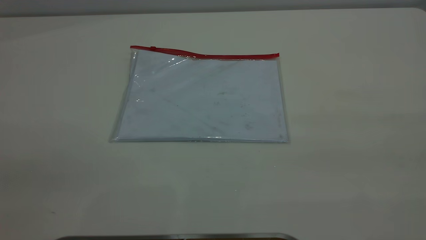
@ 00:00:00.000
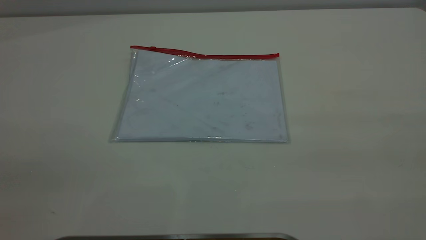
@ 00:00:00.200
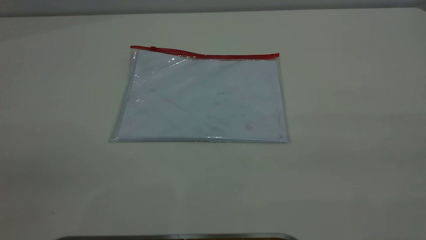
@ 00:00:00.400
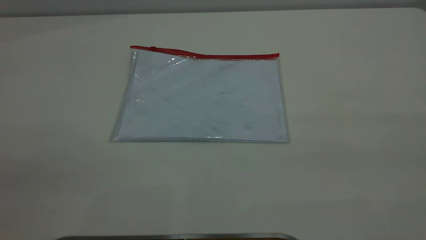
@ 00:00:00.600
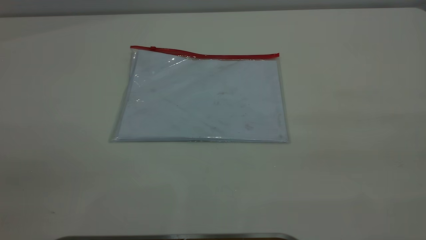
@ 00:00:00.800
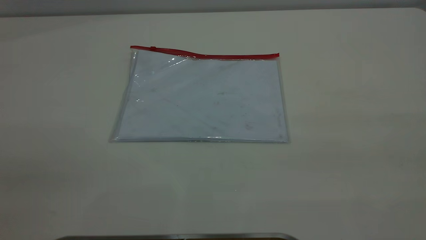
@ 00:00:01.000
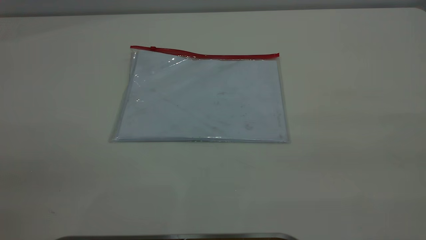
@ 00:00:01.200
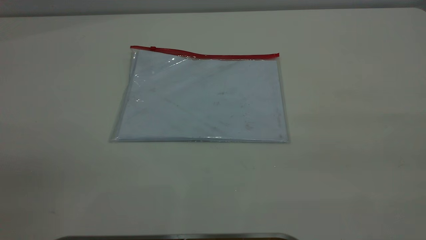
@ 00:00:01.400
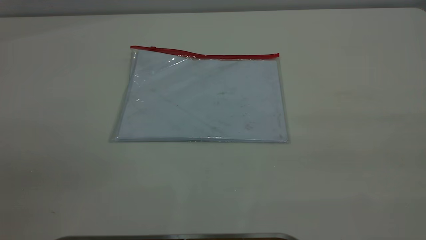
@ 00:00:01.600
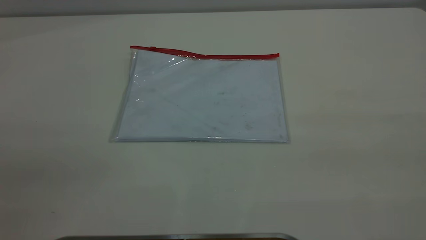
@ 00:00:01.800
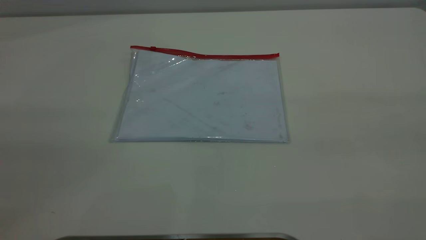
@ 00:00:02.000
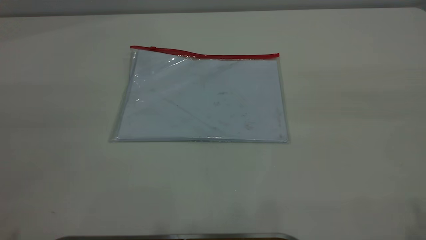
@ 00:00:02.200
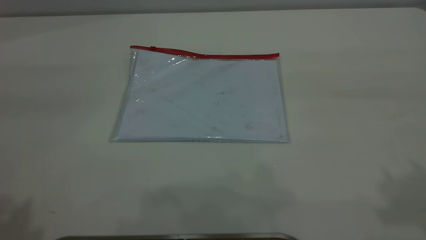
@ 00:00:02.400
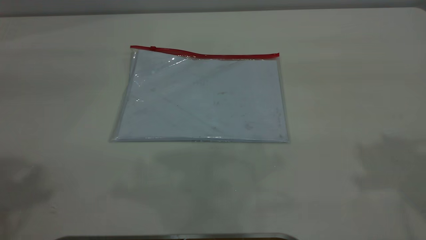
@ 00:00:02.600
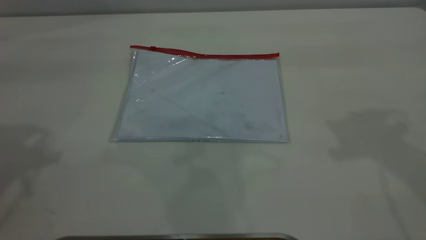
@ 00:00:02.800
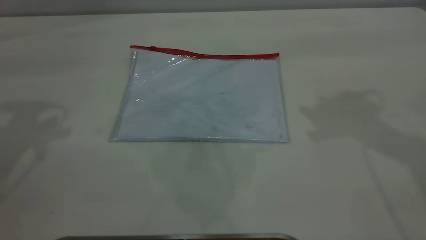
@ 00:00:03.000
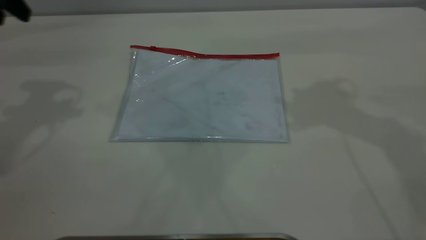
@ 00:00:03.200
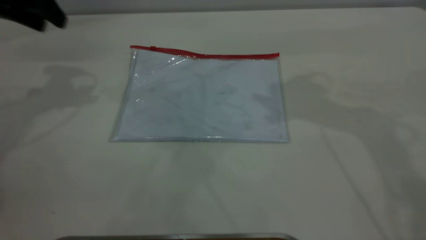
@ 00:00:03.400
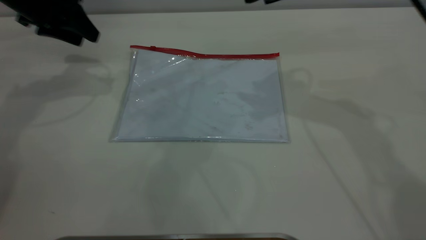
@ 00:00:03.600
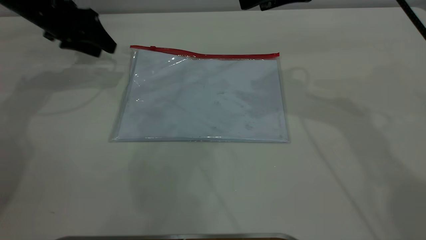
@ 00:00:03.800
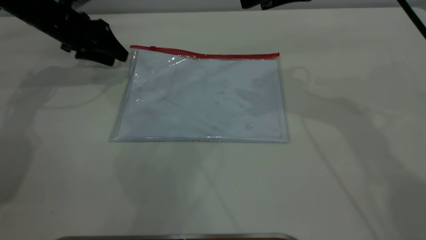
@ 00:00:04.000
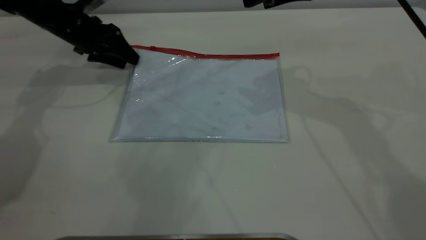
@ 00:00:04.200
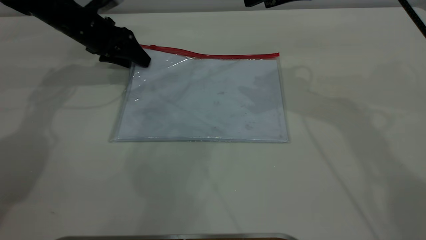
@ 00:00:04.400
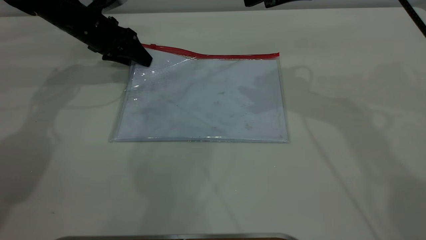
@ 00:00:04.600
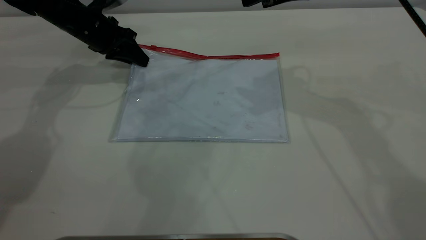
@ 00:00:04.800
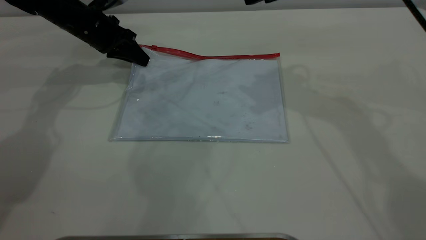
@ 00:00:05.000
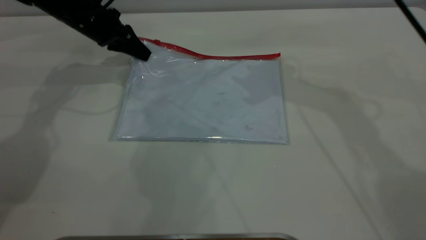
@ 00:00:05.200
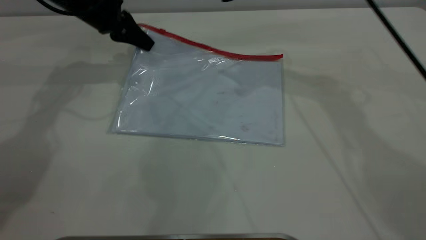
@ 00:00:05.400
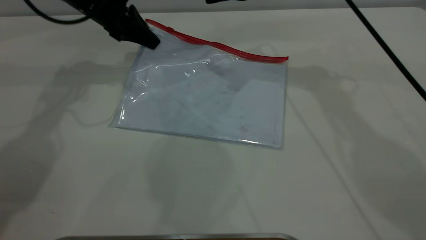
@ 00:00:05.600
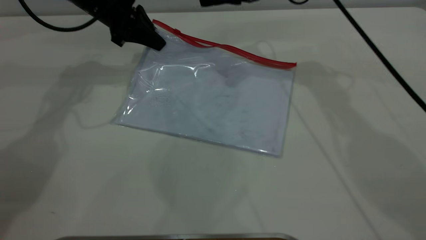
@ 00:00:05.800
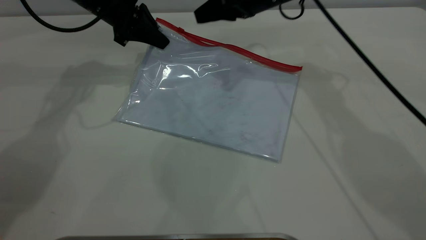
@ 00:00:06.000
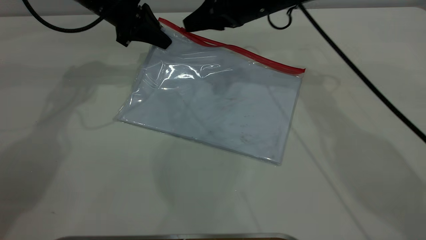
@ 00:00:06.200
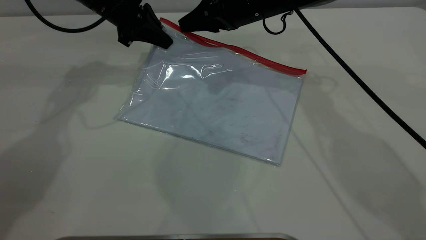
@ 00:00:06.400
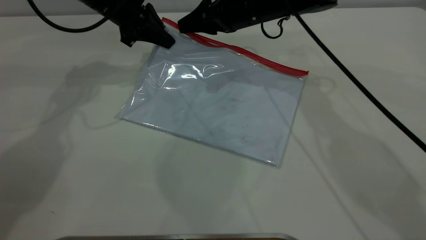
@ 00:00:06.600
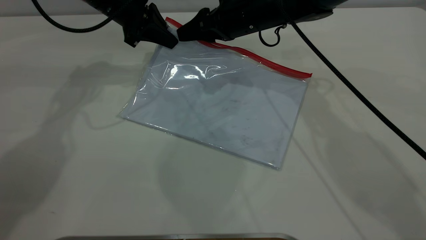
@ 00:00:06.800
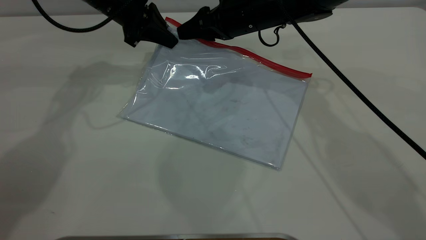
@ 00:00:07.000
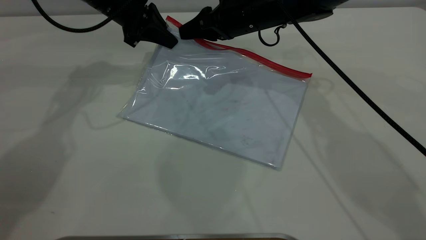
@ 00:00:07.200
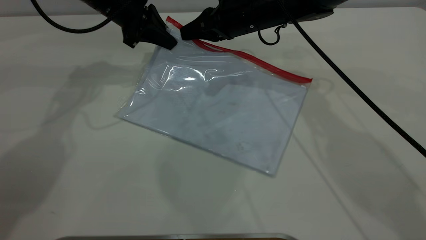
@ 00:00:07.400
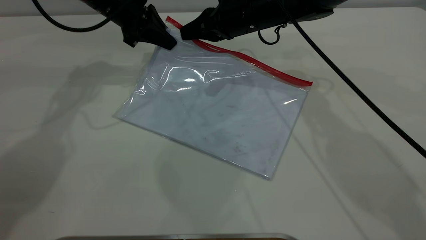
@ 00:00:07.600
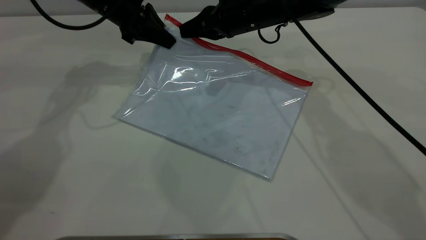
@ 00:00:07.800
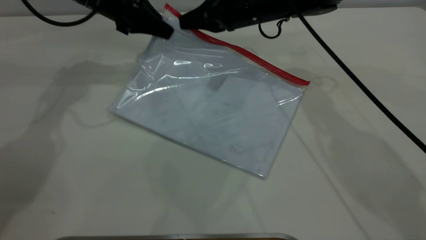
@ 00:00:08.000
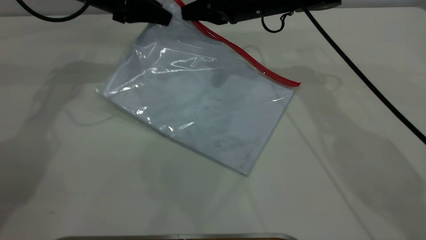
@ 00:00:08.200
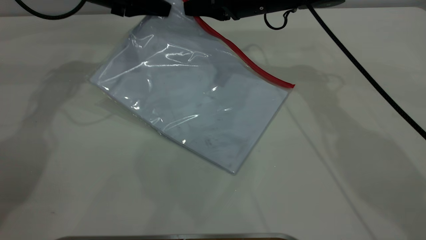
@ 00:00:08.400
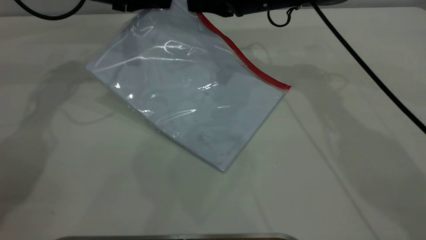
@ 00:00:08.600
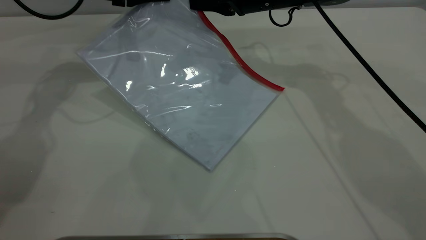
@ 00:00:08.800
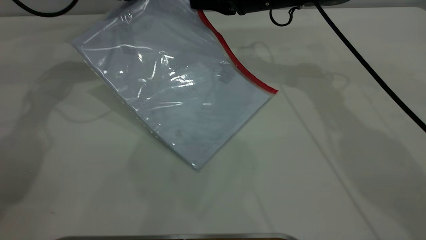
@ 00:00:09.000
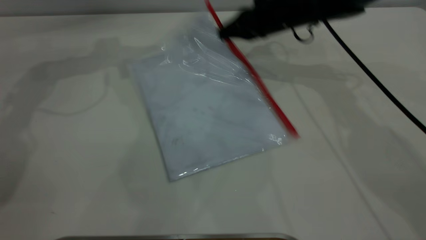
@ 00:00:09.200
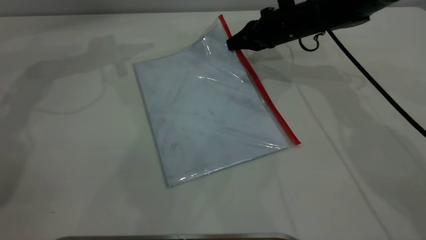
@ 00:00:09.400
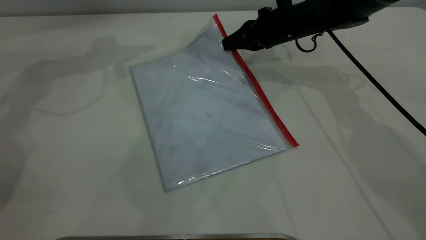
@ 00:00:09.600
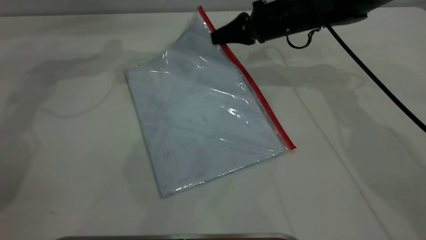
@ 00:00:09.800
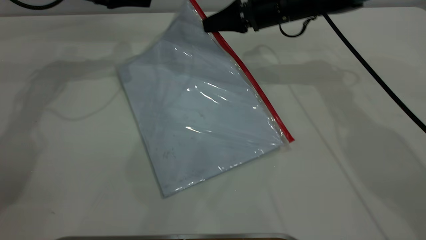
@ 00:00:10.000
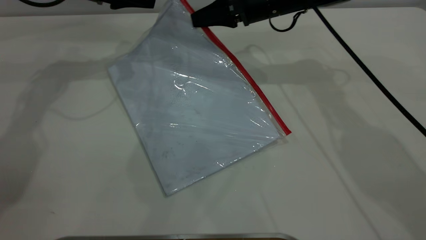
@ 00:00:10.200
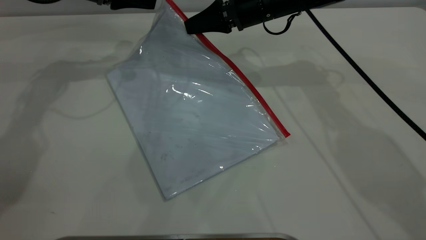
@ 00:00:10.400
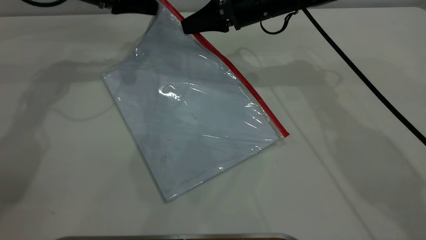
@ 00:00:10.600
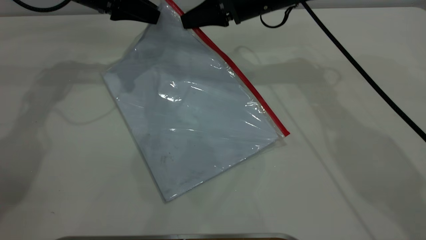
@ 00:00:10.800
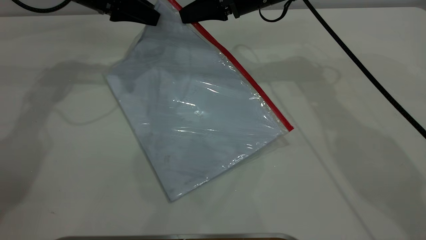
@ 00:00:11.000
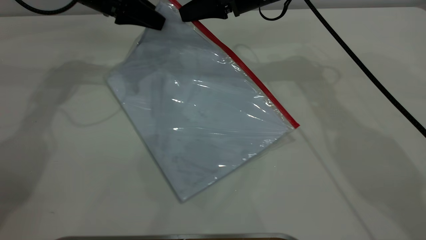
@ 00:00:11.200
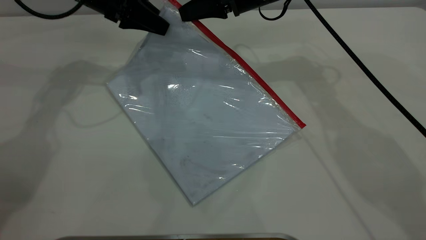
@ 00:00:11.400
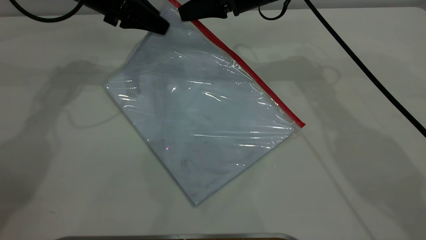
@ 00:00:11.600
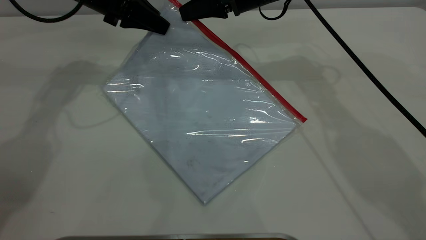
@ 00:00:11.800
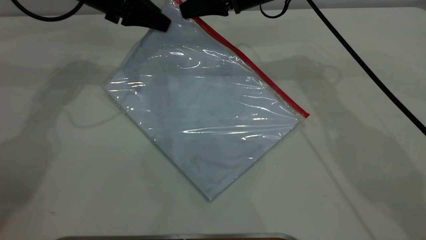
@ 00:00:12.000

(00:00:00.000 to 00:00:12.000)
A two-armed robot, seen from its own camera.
Step, 00:00:00.000 - 00:00:05.400: Pick up the transparent plastic bag with the left gripper.
00:00:00.000 - 00:00:01.600: Both grippers stay about where they are.
00:00:03.000 - 00:00:04.400: The left gripper is displaced downward and forward by roughly 25 cm, while the right gripper goes some 15 cm to the left, downward and forward.
00:00:04.400 - 00:00:06.000: The right gripper travels downward, forward and to the left by approximately 15 cm. The left gripper shifts some 5 cm upward and to the right, and closes its fingers.
00:00:06.000 - 00:00:07.600: The right gripper closes up.
00:00:07.600 - 00:00:09.000: The left gripper moves approximately 5 cm.
00:00:09.000 - 00:00:10.400: The left gripper opens up.
00:00:10.400 - 00:00:12.000: The left gripper closes.

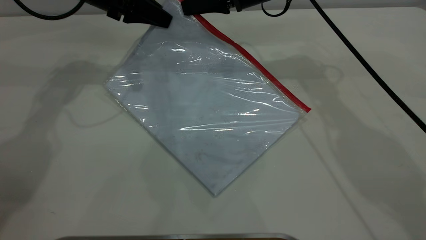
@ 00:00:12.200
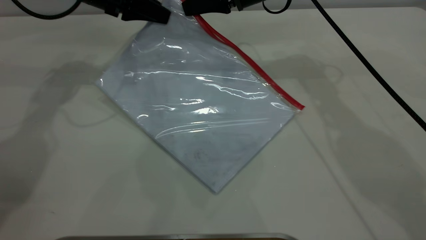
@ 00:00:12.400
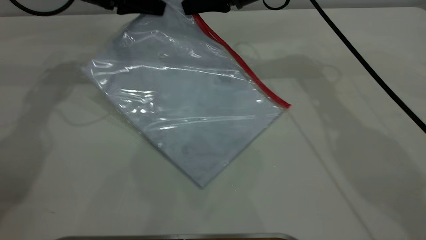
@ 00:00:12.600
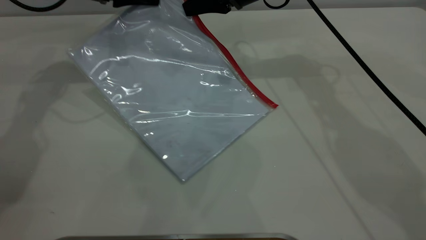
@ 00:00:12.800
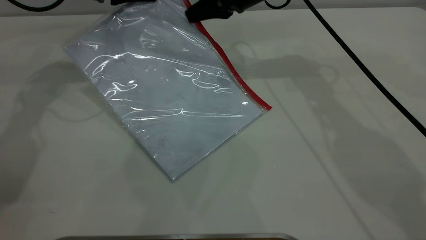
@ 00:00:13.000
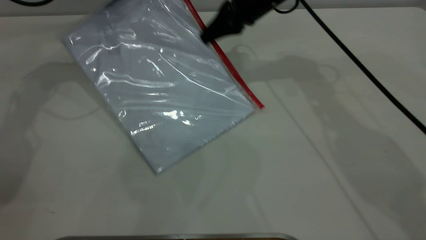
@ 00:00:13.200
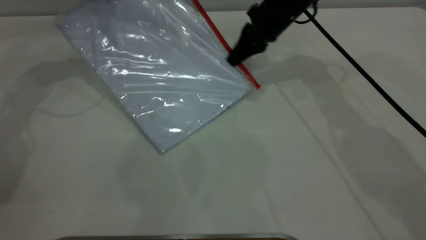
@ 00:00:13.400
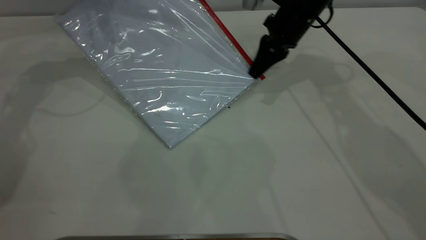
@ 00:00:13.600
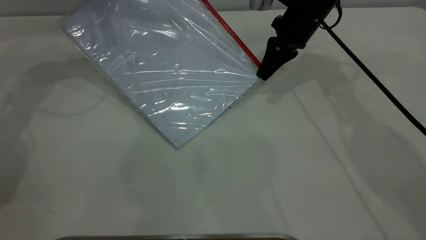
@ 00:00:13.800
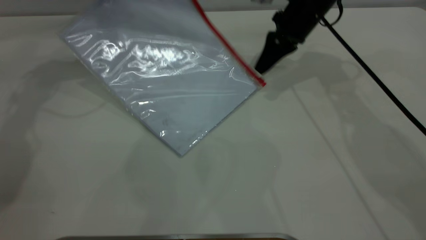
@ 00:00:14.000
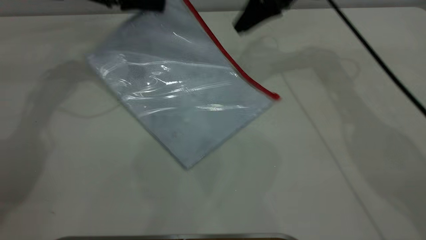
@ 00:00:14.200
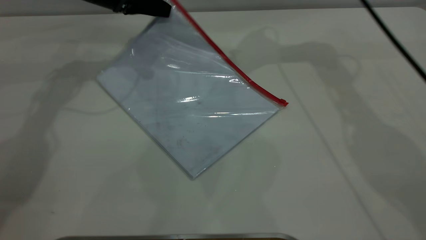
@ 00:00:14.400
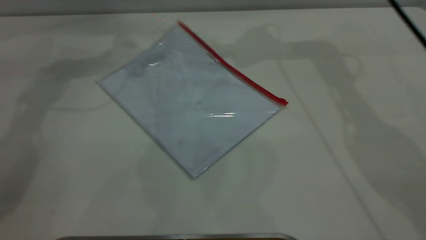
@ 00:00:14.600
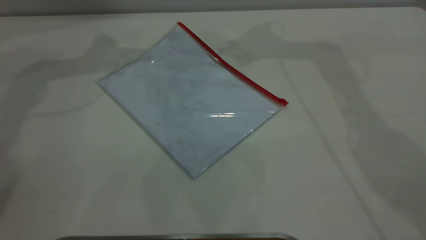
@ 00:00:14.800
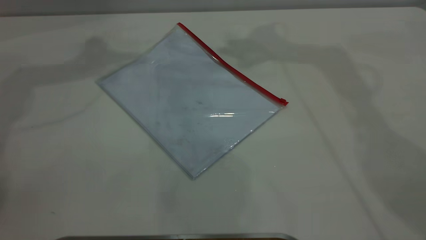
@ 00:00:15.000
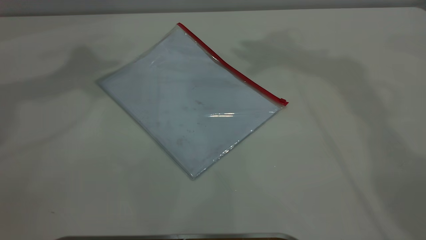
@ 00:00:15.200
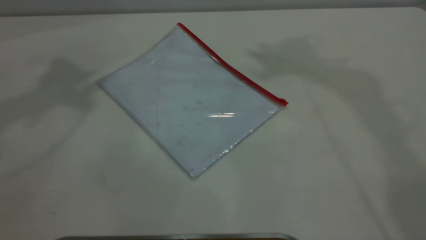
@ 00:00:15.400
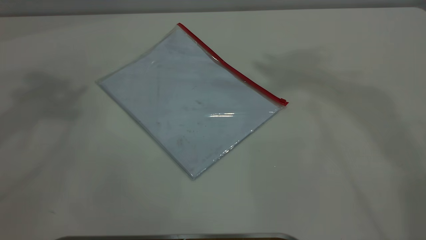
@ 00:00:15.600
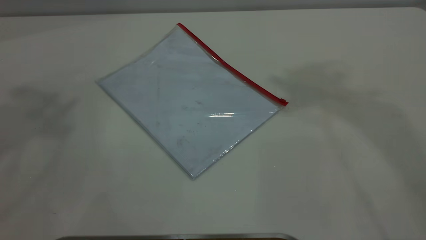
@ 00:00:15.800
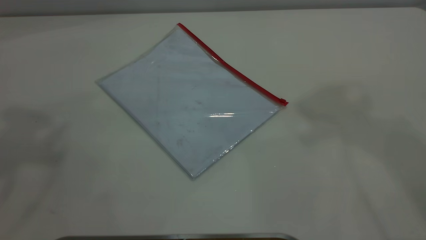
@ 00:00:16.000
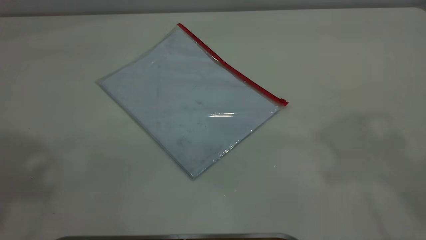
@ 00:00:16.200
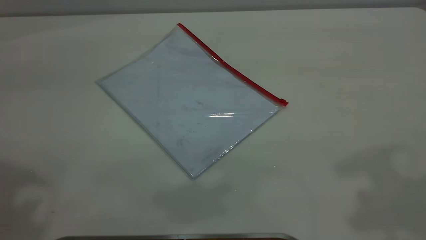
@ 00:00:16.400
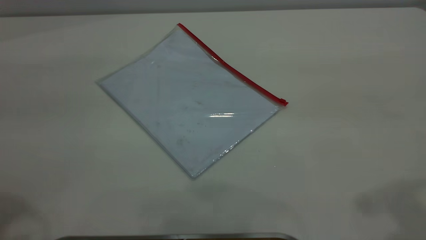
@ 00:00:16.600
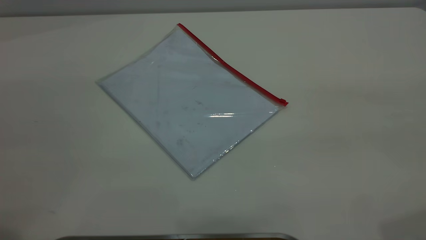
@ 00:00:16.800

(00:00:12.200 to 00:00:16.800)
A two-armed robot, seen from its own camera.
Step, 00:00:14.400 - 00:00:14.600: Place the transparent plastic bag.
00:00:12.200 - 00:00:13.800: The left gripper heads to the left, covering approximately 5 cm; the right gripper shifts roughly 10 cm to the right.
00:00:13.800 - 00:00:15.200: The grippers both shift upward by approximately 35 cm. The left gripper opens, while the right gripper opens its fingers.
